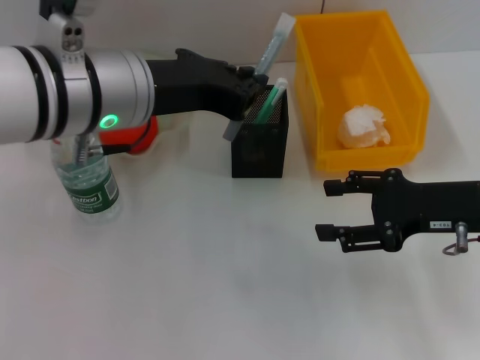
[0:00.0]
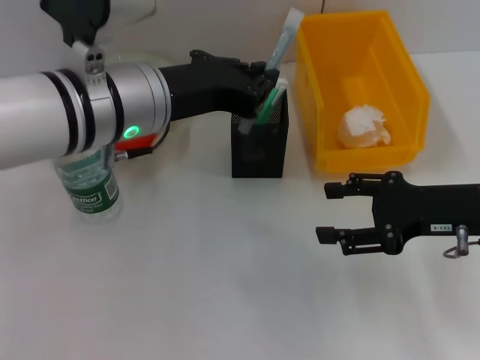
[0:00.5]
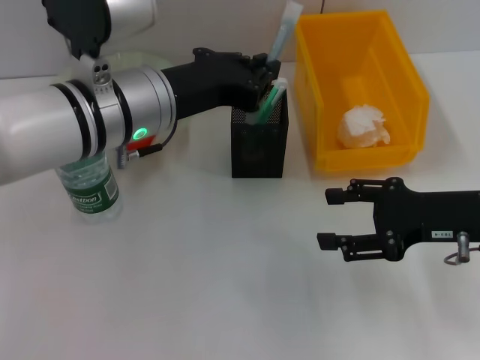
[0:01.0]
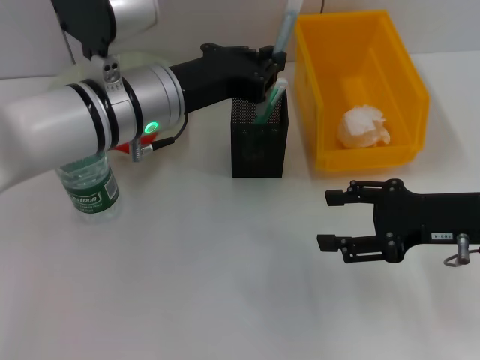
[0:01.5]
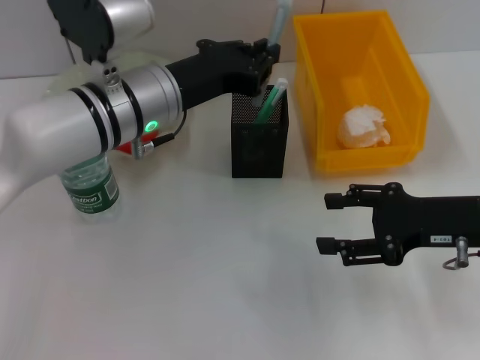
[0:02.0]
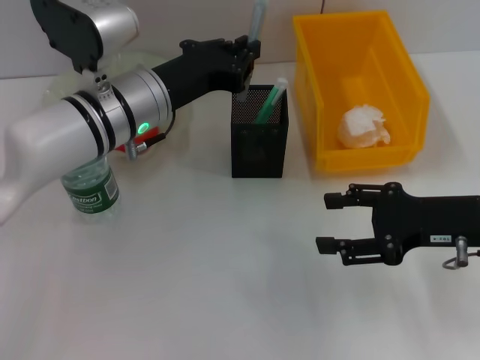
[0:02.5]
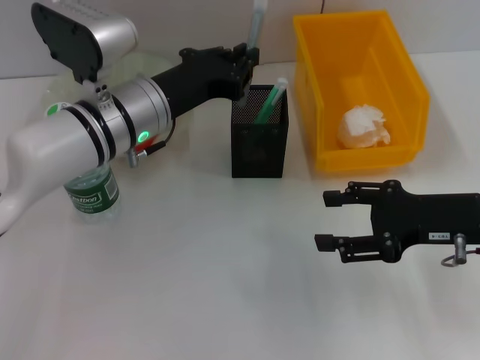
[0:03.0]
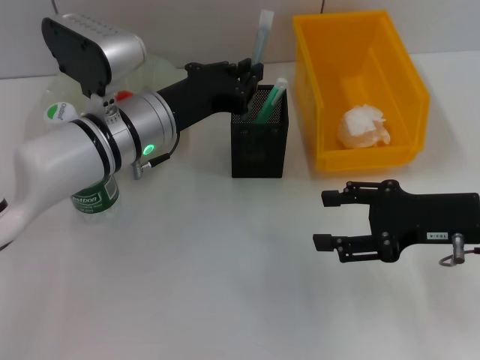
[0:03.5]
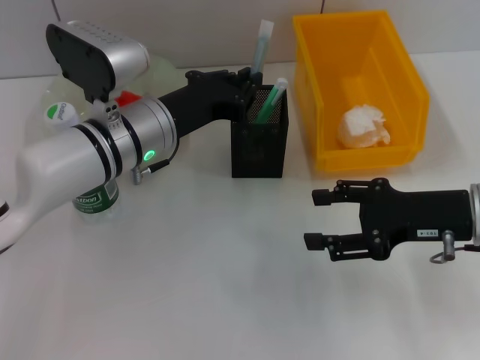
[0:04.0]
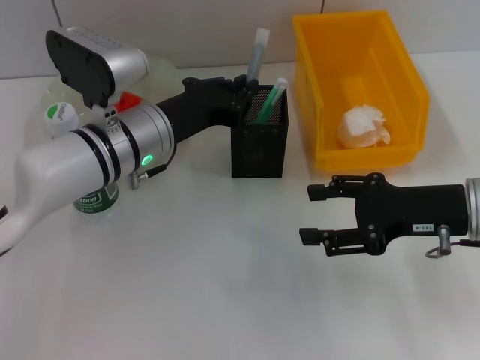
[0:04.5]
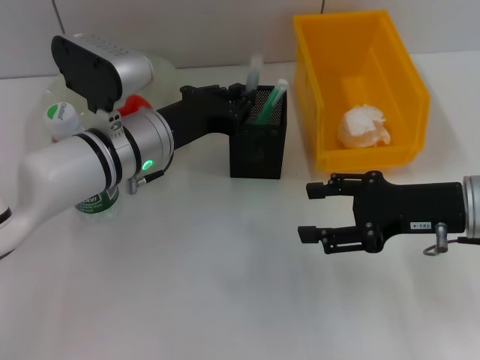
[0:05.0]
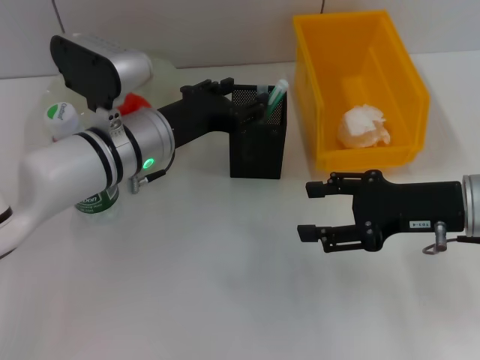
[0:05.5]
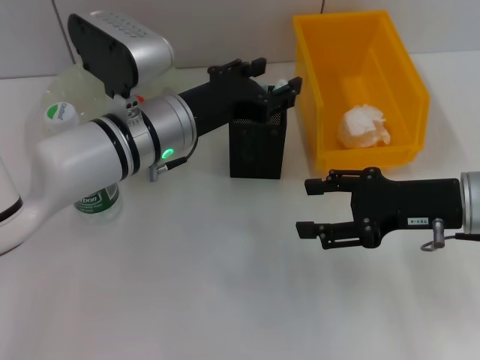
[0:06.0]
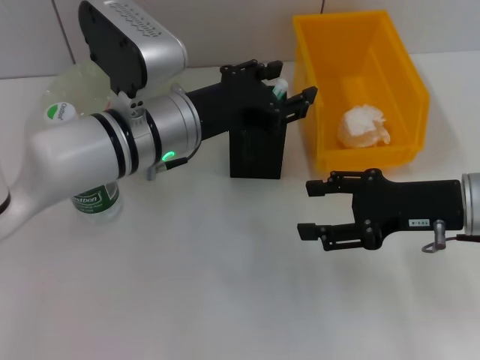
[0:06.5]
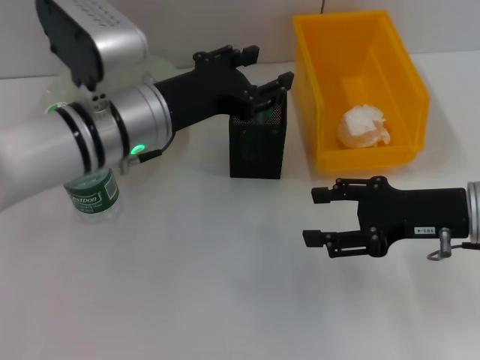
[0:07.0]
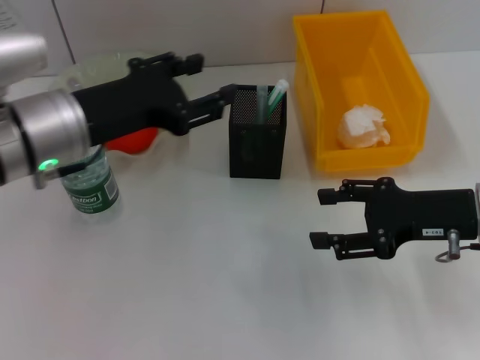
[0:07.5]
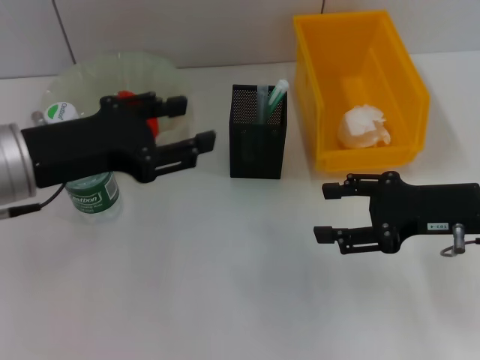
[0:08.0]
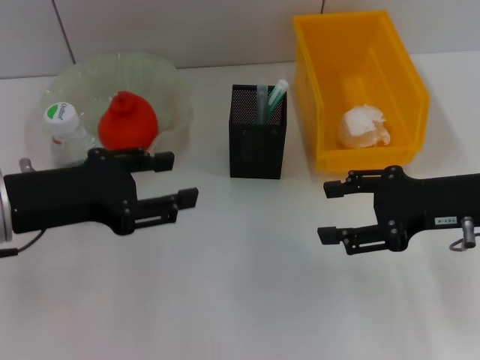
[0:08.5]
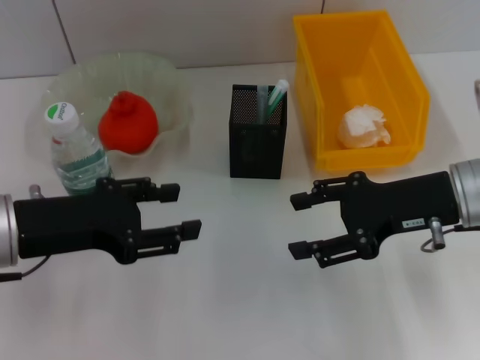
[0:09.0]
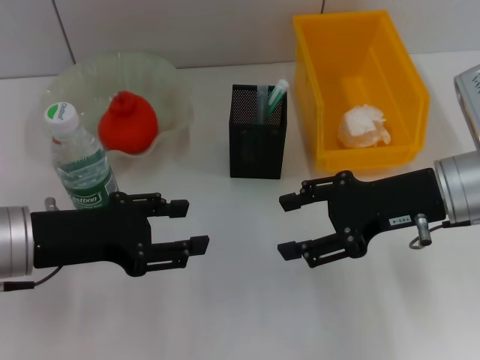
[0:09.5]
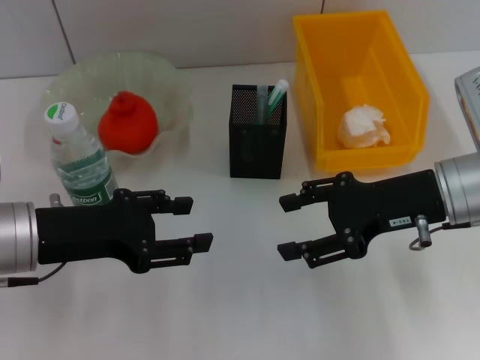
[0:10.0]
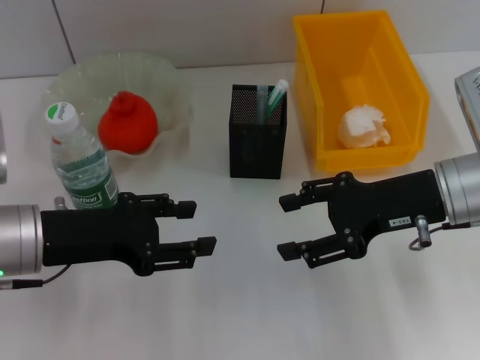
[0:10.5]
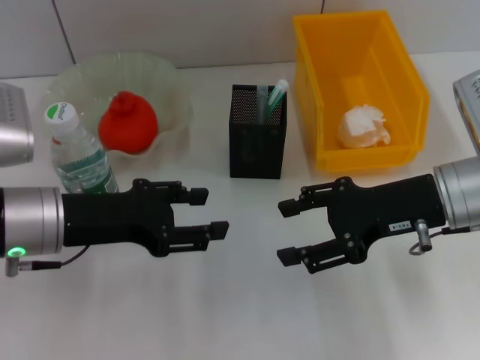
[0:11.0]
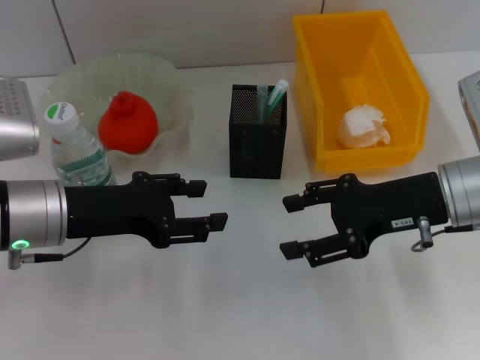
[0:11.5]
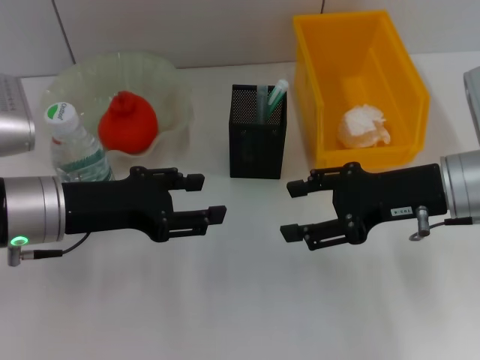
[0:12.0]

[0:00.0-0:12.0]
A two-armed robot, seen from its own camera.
Step, 0:00.0 to 0:05.0: Place the gray glue into the pen holder with the left hand.
0:00.0 to 0:02.0: The left gripper goes about 10 cm downward and forward.
0:02.0 to 0:04.0: The grippers stay close to where they were, moving slightly.
0:04.0 to 0:06.0: The left gripper opens its fingers.
0:06.0 to 0:08.0: The left gripper travels to the left, backward and upward by some 15 cm.
0:08.0 to 0:10.0: The left gripper ends up roughly 5 cm from where it was. The right gripper moves some 5 cm.
0:10.0 to 0:12.0: The grippers make only small movements.

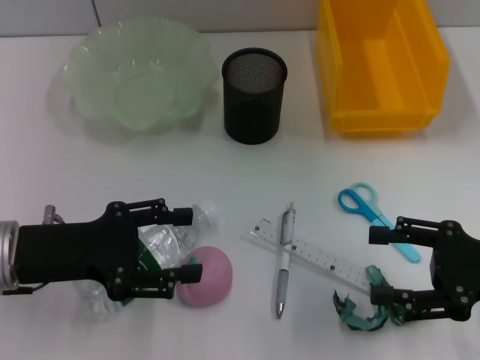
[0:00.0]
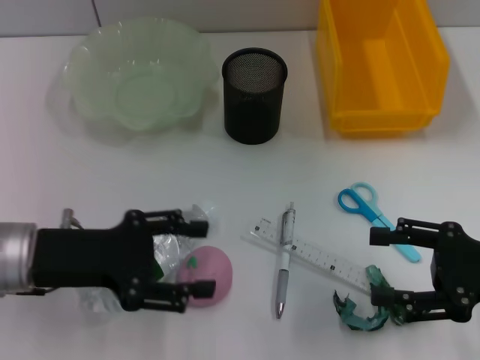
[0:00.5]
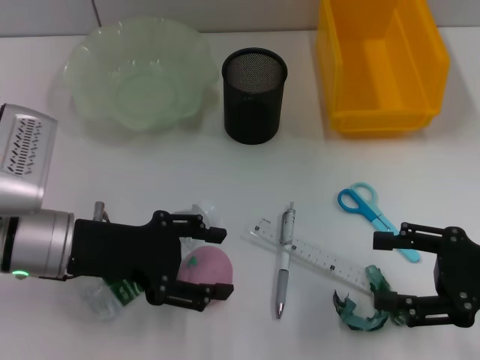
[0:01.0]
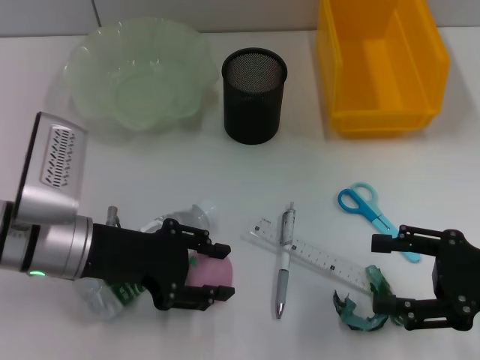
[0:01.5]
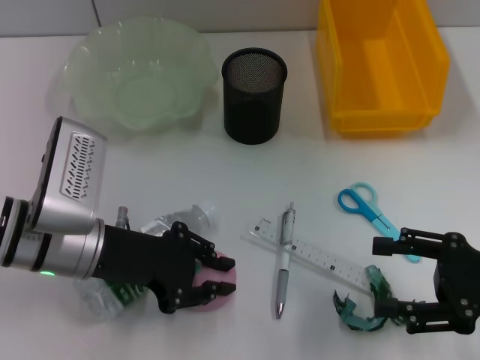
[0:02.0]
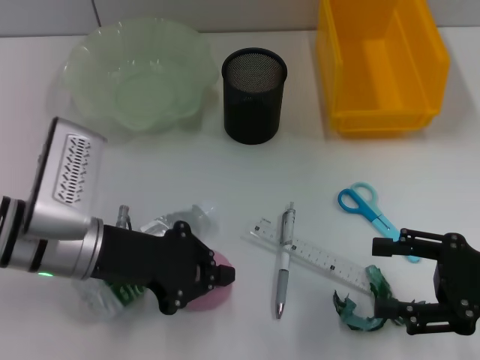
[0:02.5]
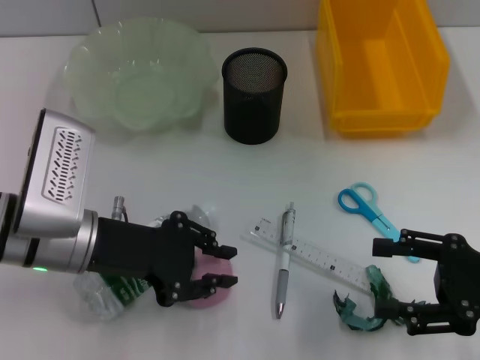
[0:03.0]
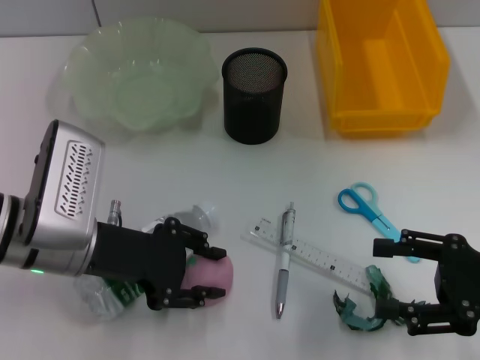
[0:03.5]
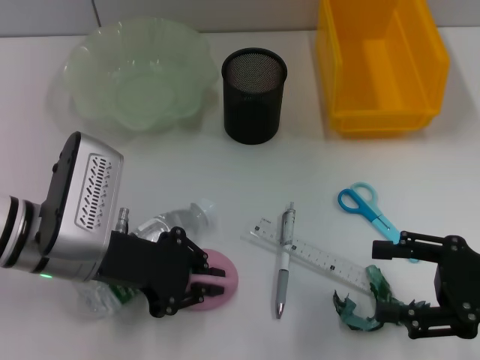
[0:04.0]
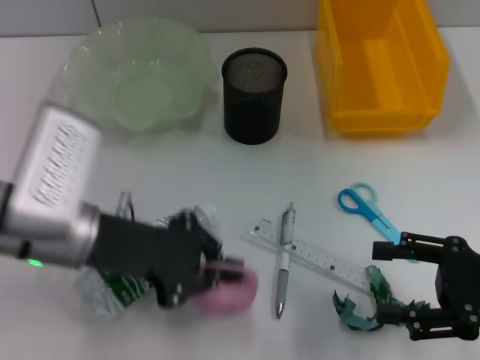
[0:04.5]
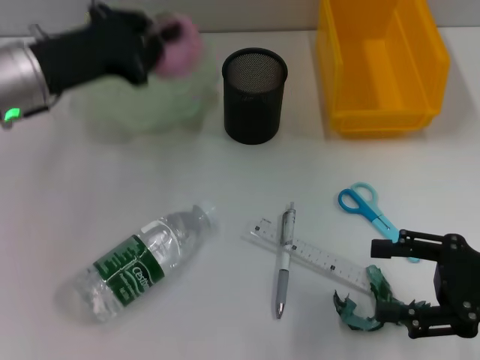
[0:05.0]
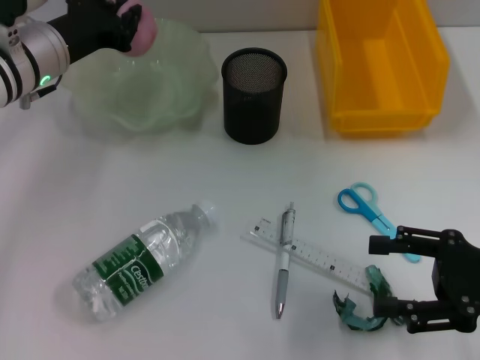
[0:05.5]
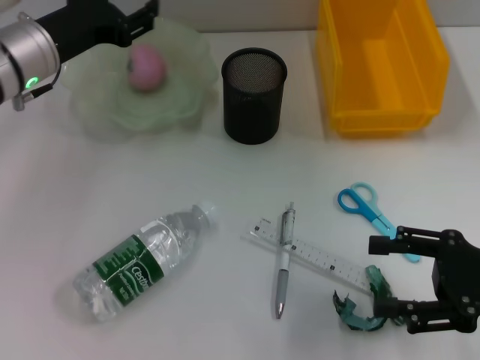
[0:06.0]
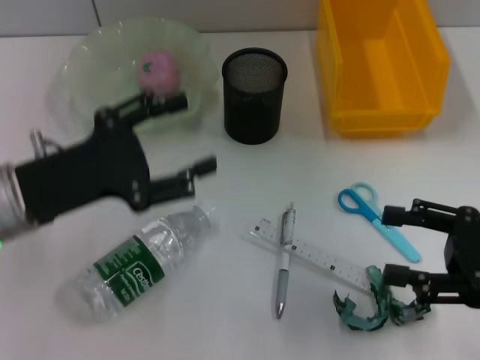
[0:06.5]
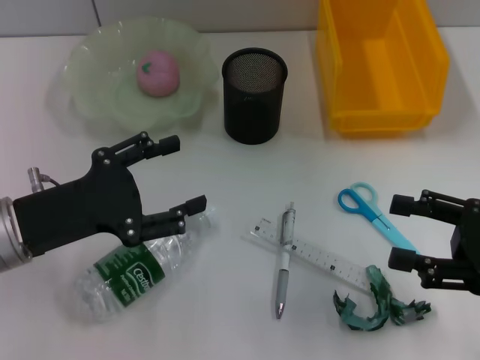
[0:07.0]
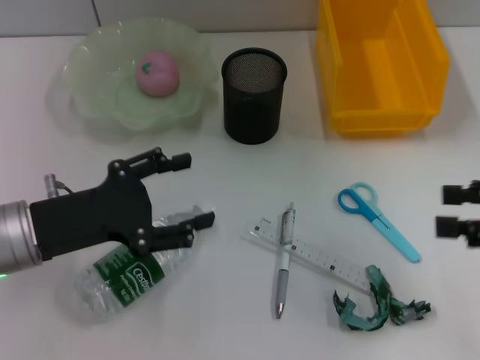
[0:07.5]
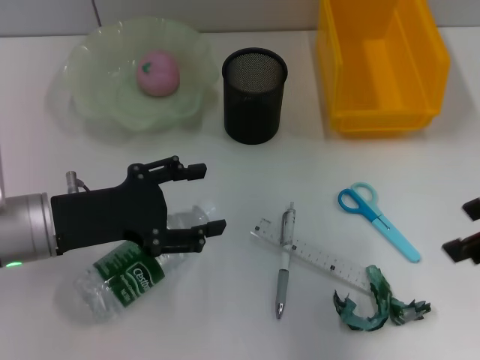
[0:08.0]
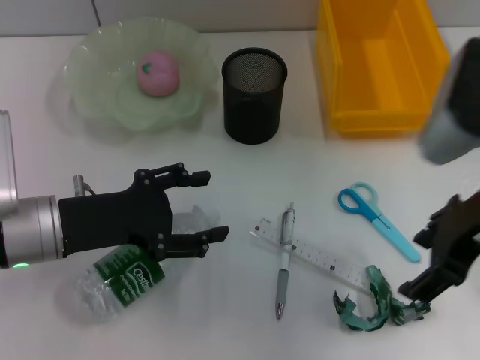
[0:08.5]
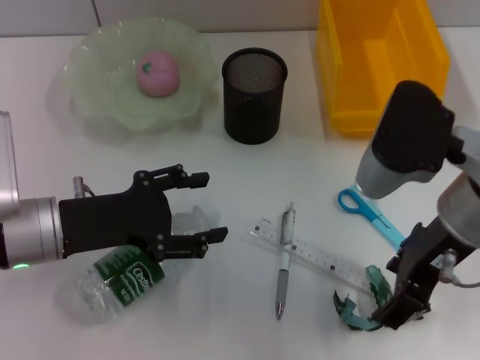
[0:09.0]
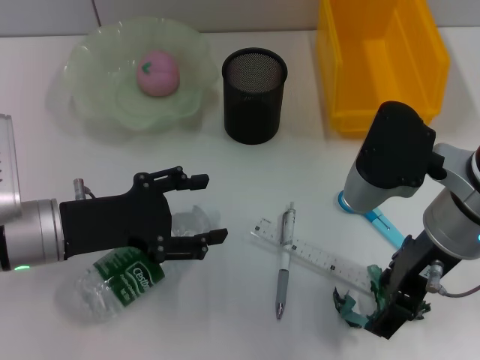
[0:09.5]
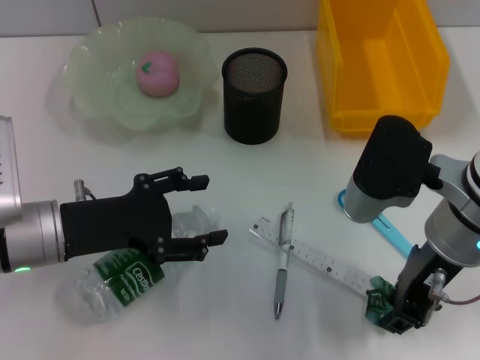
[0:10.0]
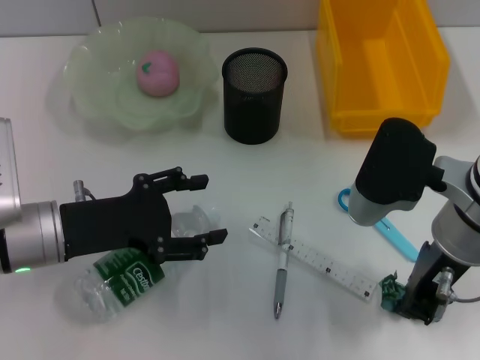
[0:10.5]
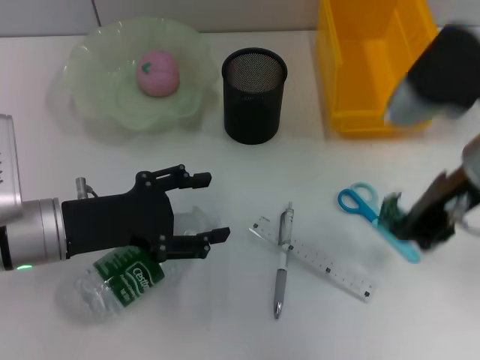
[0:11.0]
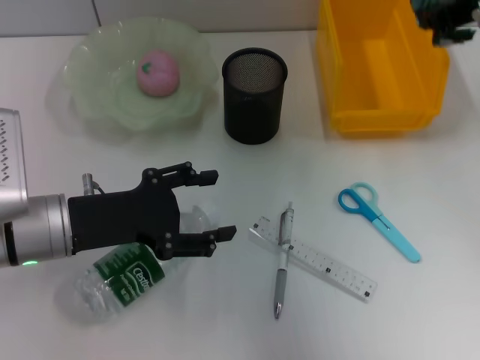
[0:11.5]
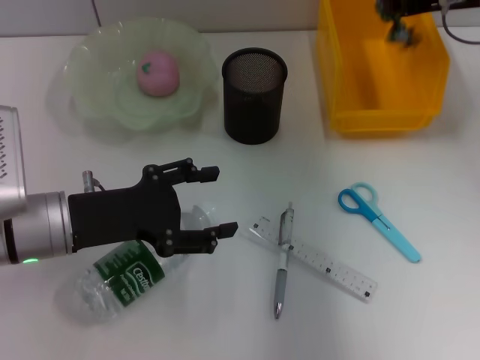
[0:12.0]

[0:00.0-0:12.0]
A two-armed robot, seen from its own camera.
Step, 0:00.0 to 0:04.0: Grab the peach with the left hand.
Step, 0:04.5 to 0:06.0: Place the peach into the fruit bowl with the left hand.
Step, 0:06.5 to 0:10.0: Grab the plastic with the right hand.
0:00.0 to 0:02.0: The left gripper goes roughly 5 cm to the right, and closes its fingers.
0:02.0 to 0:04.0: The left gripper closes and opens again.
0:04.0 to 0:06.0: The left gripper heads forward and upward, covering some 15 cm, and closes, then reopens.
0:06.0 to 0:08.0: The right gripper is displaced upward by approximately 15 cm; the left gripper moves backward, roughly 15 cm, and opens its fingers.
0:08.0 to 0:10.0: The right gripper goes some 15 cm to the left and downward, and closes its fingers.
0:10.0 to 0:12.0: The right gripper moves forward, to the right and upward, roughly 20 cm, and closes up.

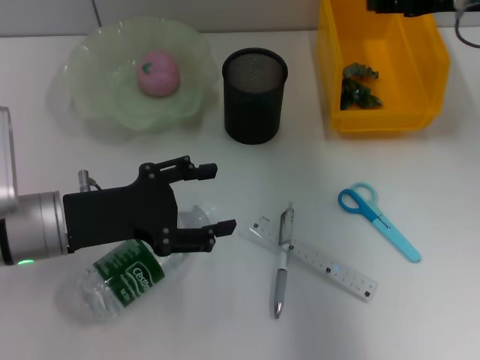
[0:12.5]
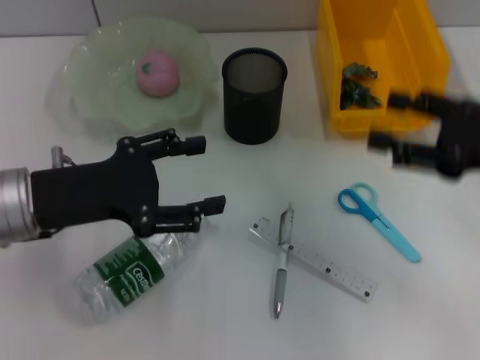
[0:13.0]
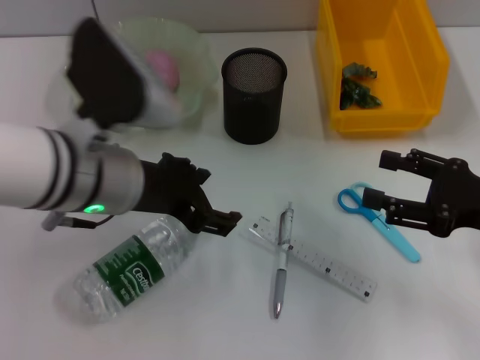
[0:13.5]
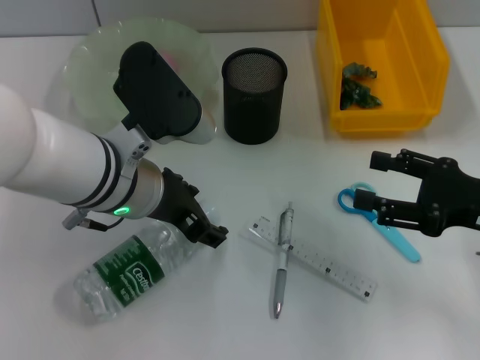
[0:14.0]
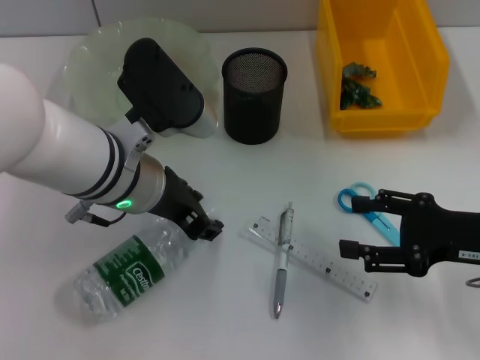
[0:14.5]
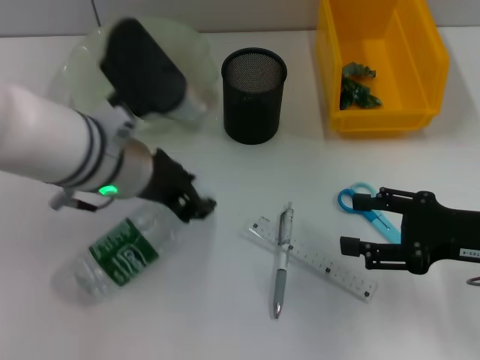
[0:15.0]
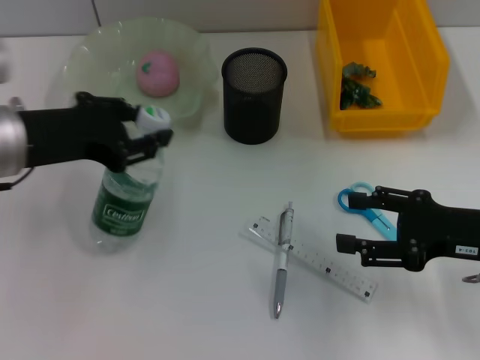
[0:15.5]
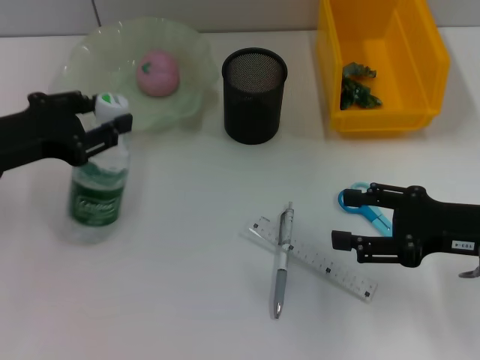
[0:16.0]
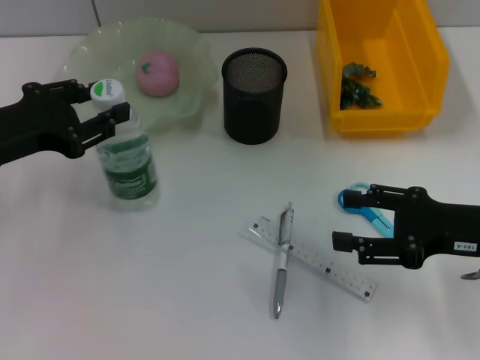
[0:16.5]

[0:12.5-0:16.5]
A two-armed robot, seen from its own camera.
Step, 0:13.0 to 0:14.5: Grab the water bottle with the left hand.
0:12.5 to 0:14.5: The left gripper shifts some 10 cm to the right. Meanwhile the right gripper moves backward and downward, approximately 20 cm.
0:14.5 to 0:16.5: The left gripper shifts some 15 cm to the left.
